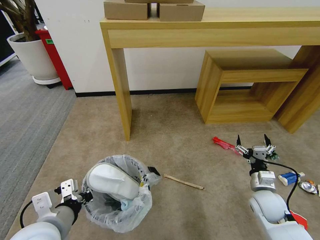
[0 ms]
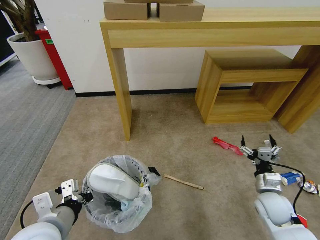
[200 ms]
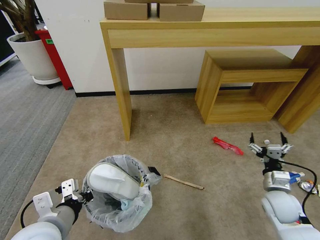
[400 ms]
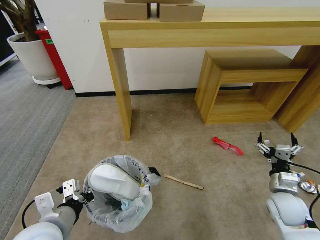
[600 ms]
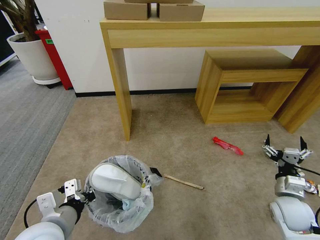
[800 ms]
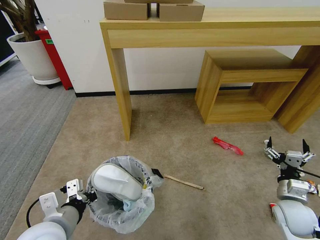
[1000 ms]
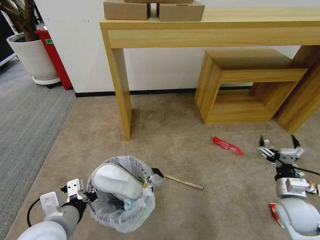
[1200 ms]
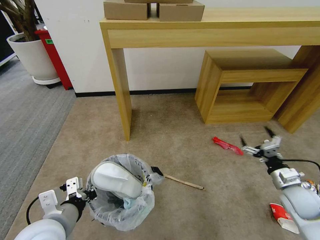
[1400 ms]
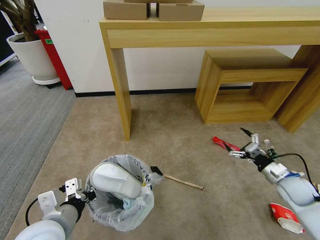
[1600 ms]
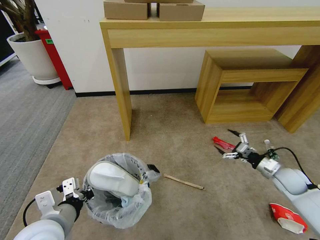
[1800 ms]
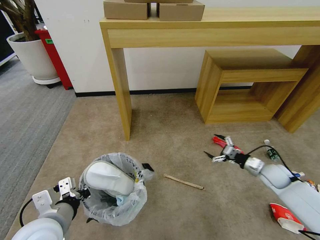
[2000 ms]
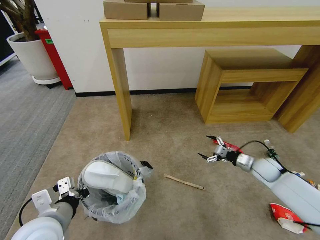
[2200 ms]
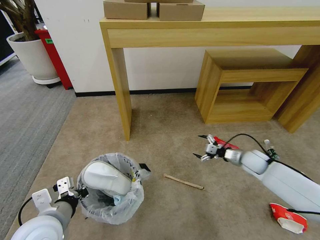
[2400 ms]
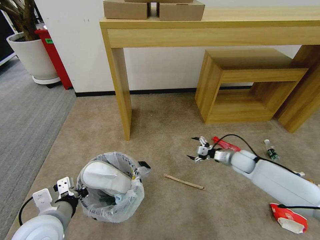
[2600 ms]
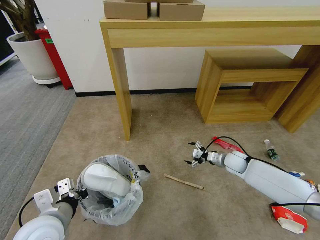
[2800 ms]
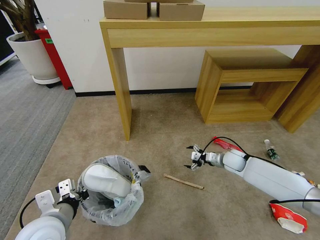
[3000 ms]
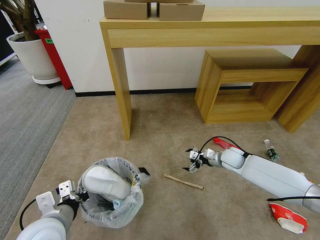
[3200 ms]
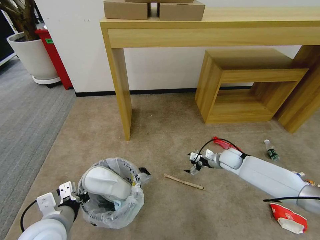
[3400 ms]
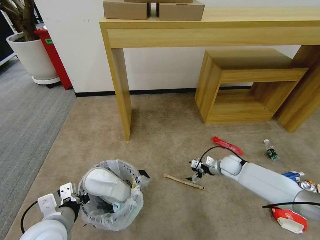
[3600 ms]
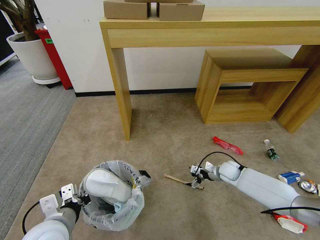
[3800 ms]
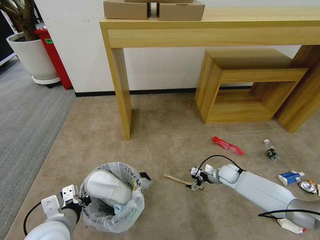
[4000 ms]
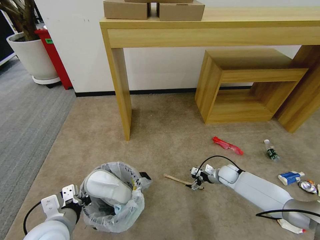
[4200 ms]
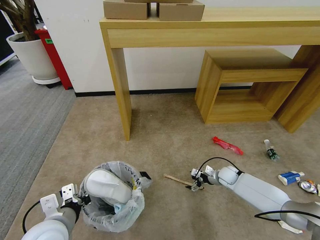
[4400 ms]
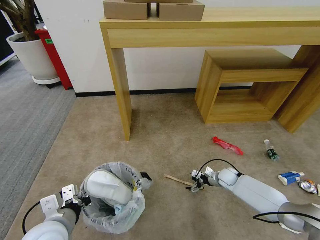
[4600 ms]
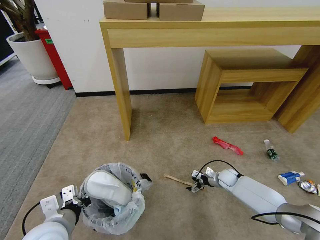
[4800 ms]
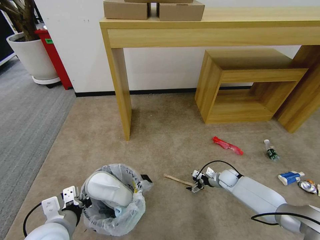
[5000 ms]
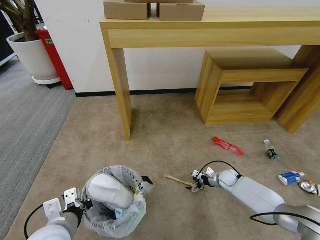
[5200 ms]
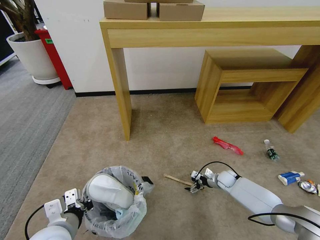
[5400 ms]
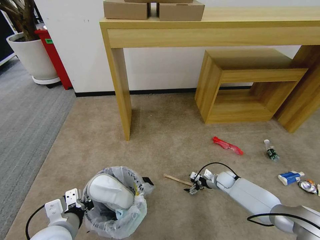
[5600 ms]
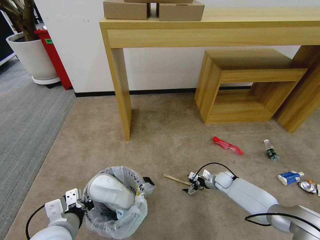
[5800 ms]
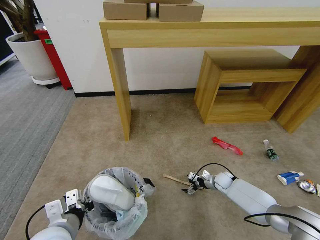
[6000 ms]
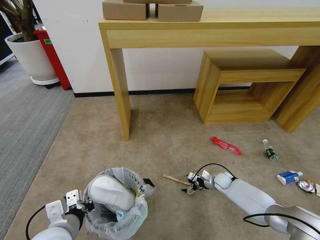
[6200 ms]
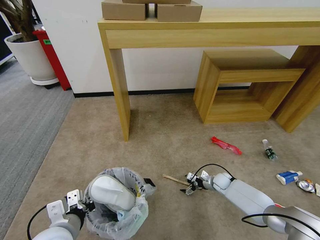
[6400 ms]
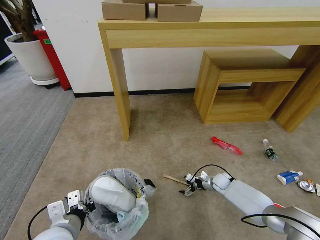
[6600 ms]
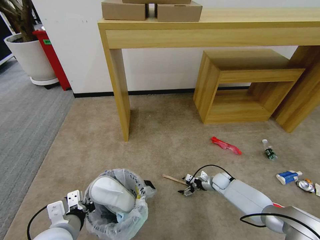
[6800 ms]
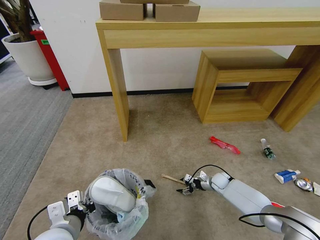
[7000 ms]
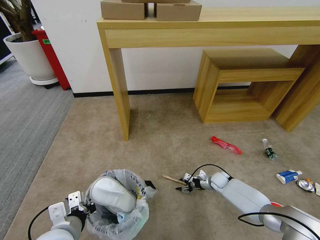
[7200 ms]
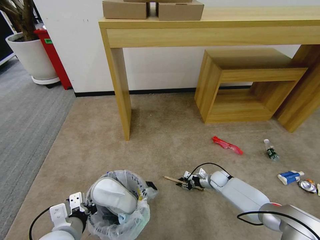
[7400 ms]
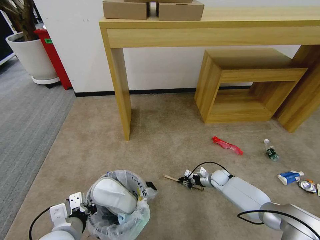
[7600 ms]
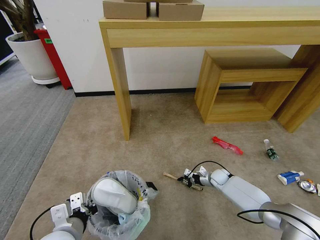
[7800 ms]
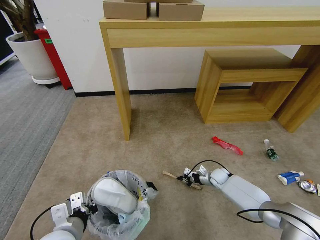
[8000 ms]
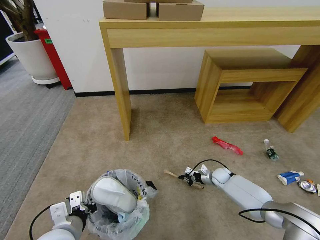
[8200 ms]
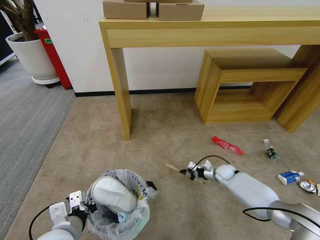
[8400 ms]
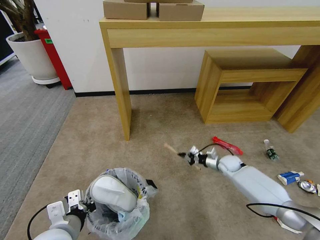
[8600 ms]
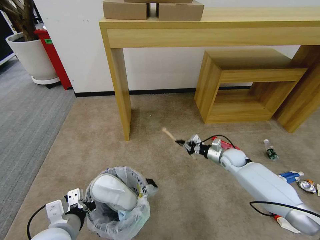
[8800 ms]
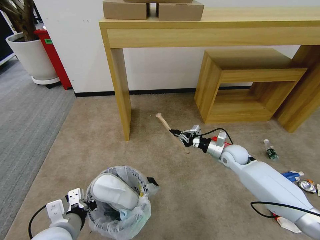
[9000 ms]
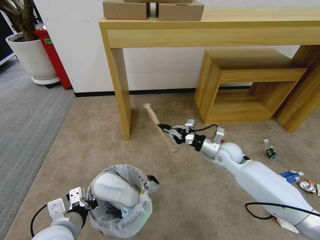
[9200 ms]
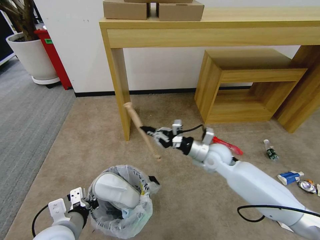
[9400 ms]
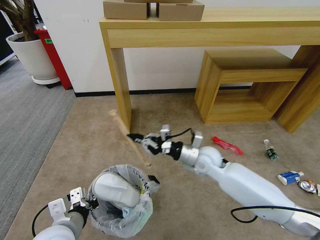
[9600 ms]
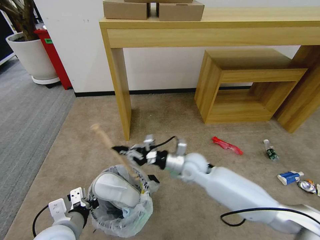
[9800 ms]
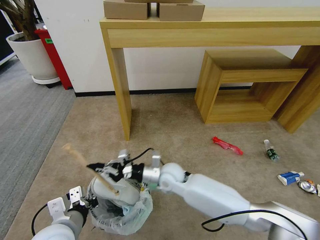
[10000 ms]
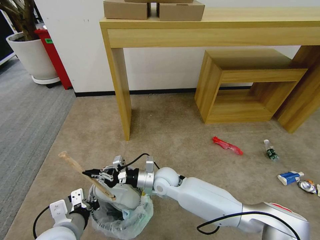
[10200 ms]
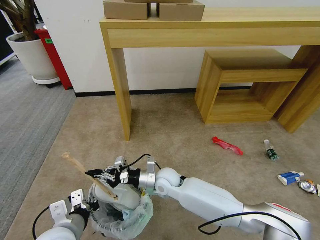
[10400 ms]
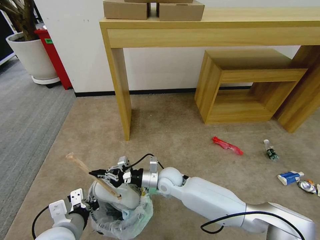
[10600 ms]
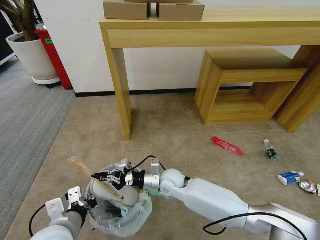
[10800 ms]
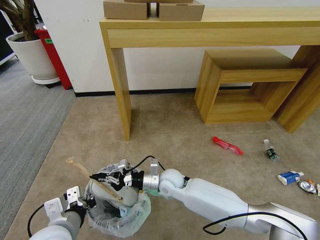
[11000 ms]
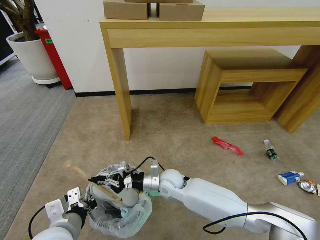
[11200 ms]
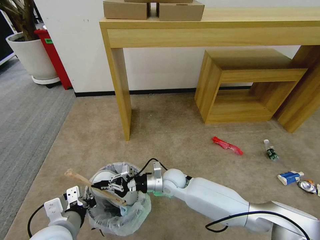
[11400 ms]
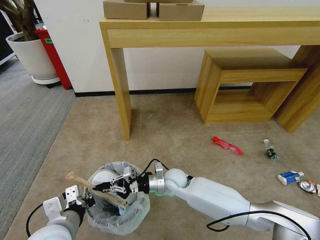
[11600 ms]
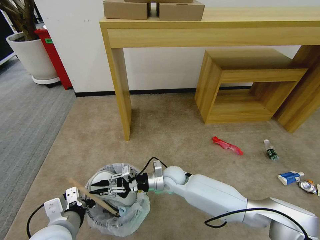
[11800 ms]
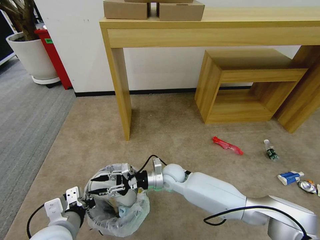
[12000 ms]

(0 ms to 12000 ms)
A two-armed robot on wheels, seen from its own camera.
Task of the whole recording: Pick up the trash bin and place the garbage on the floor into it.
0 ms - 1600 ms: The right gripper moves to the right, approximately 10 cm.
1600 ms - 3000 ms: The right gripper travels forward and to the left by approximately 20 cm.
3000 ms - 4400 ms: The right gripper goes about 10 cm downward.
4400 ms - 6000 ms: The grippers stay close to where they were, moving slightly.
6000 ms - 7600 ms: The right gripper closes up.
7600 ms - 9000 ms: The right gripper is displaced upward by roughly 20 cm.
9000 ms - 10400 ms: The right gripper goes some 30 cm to the left.
10400 ms - 12000 ms: The right gripper opens.

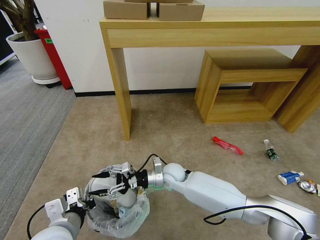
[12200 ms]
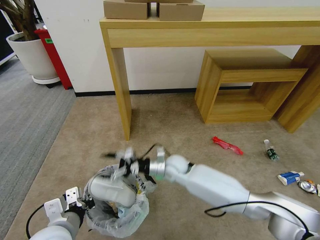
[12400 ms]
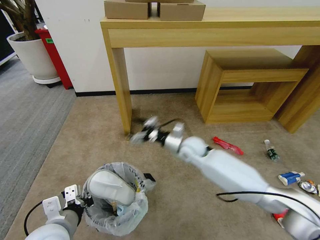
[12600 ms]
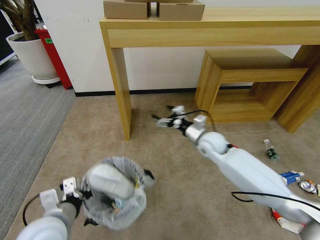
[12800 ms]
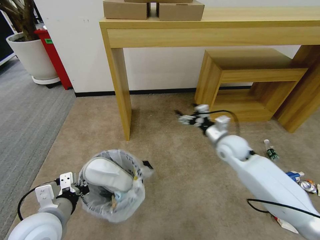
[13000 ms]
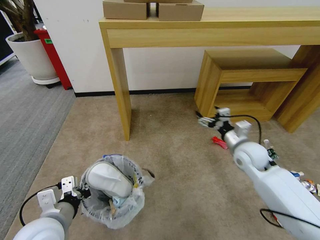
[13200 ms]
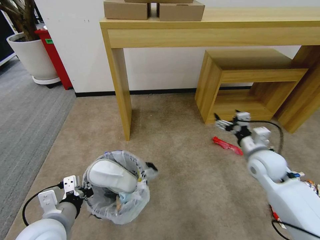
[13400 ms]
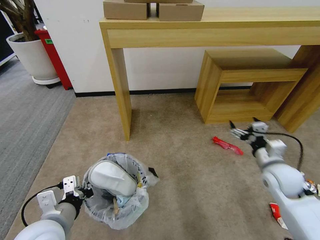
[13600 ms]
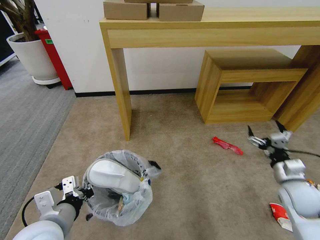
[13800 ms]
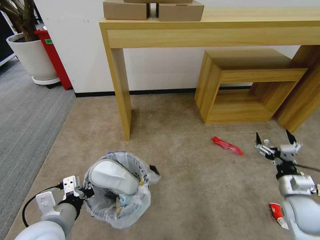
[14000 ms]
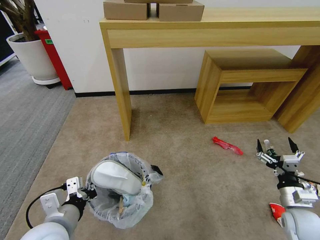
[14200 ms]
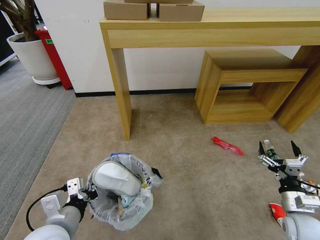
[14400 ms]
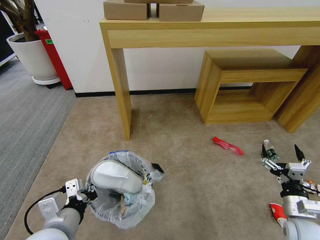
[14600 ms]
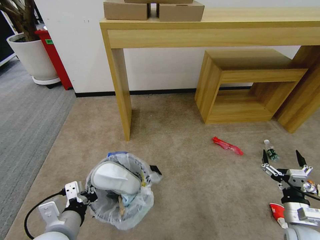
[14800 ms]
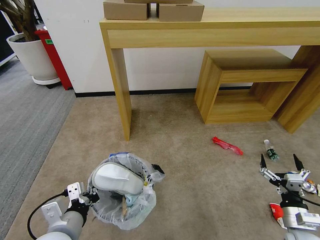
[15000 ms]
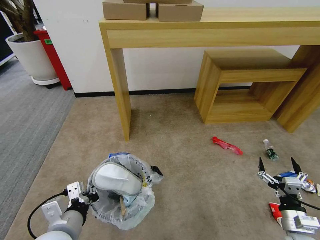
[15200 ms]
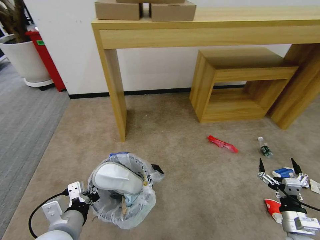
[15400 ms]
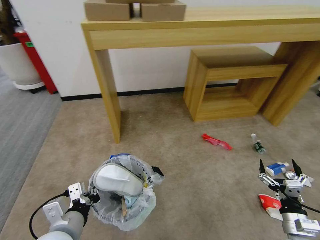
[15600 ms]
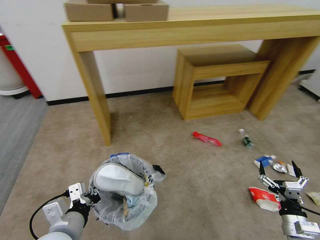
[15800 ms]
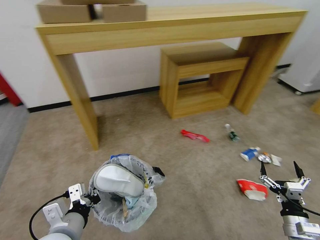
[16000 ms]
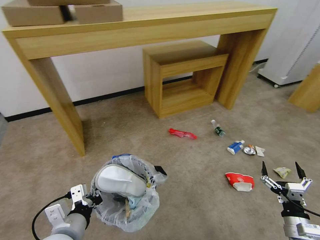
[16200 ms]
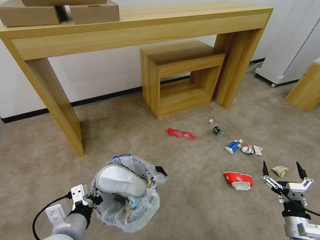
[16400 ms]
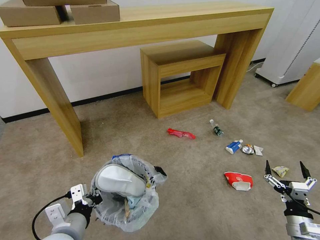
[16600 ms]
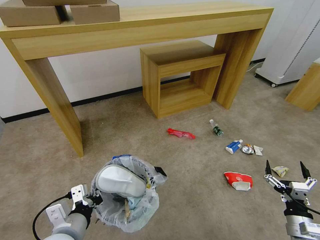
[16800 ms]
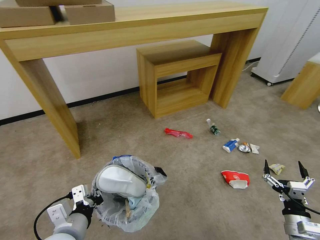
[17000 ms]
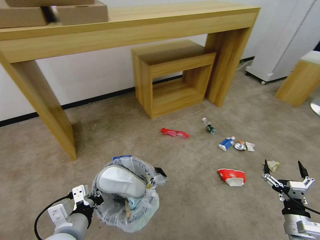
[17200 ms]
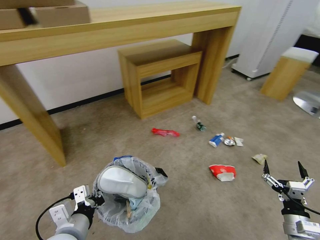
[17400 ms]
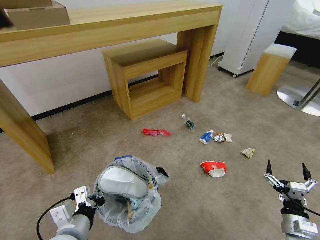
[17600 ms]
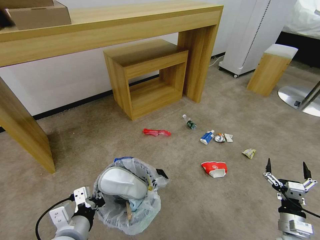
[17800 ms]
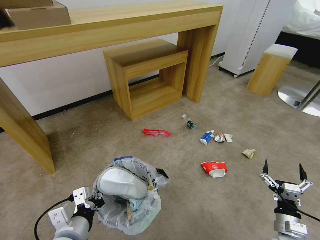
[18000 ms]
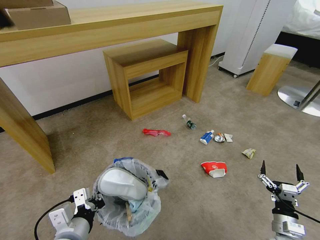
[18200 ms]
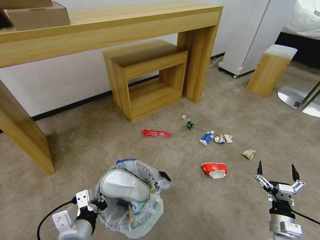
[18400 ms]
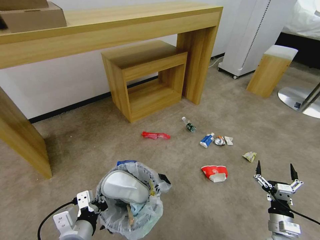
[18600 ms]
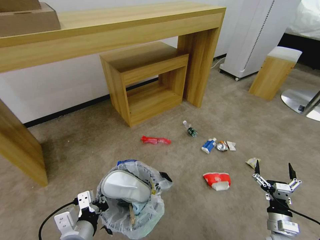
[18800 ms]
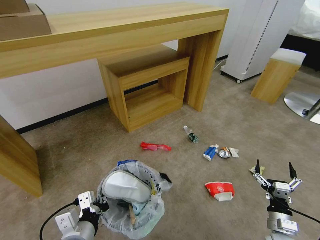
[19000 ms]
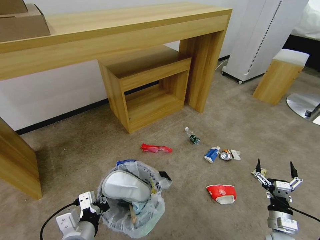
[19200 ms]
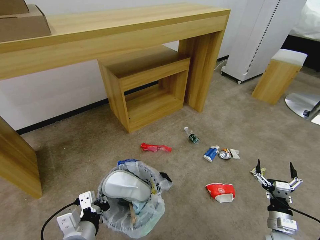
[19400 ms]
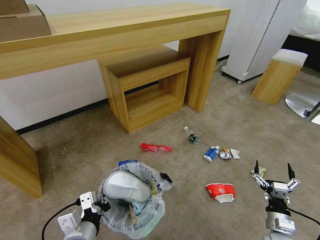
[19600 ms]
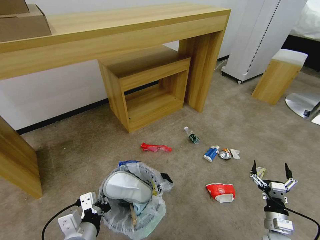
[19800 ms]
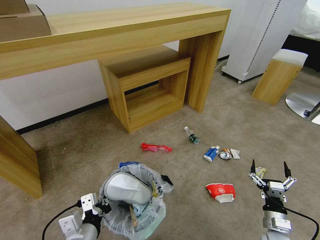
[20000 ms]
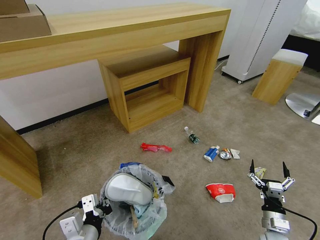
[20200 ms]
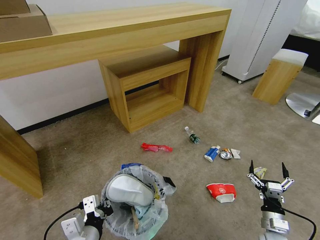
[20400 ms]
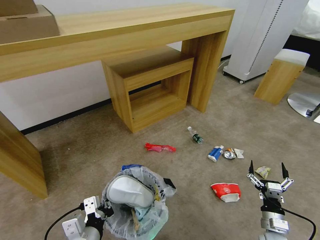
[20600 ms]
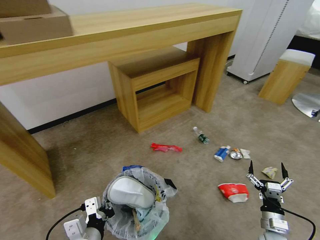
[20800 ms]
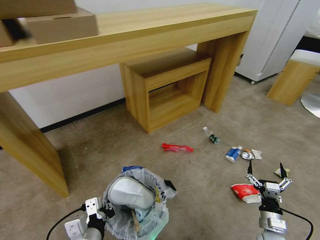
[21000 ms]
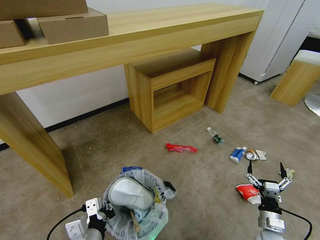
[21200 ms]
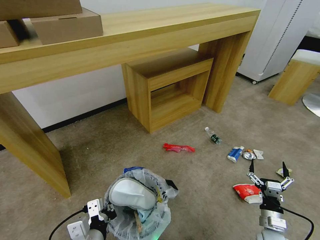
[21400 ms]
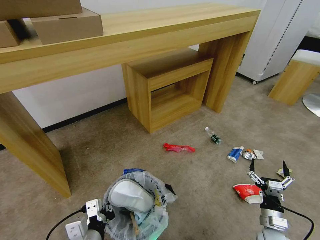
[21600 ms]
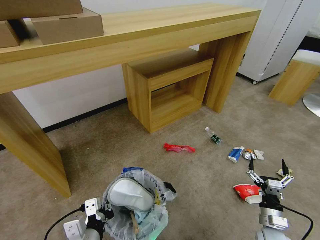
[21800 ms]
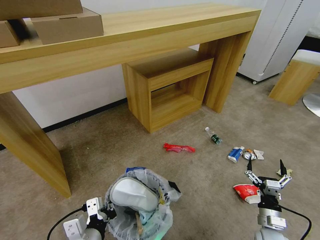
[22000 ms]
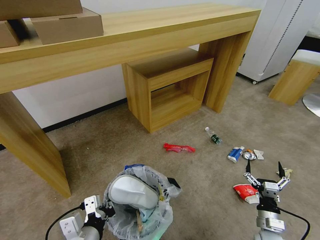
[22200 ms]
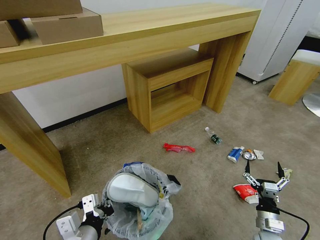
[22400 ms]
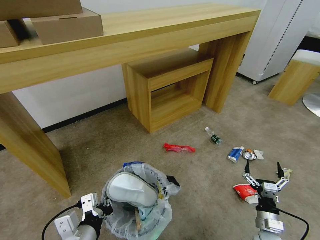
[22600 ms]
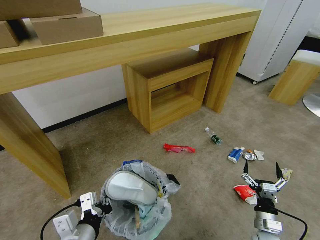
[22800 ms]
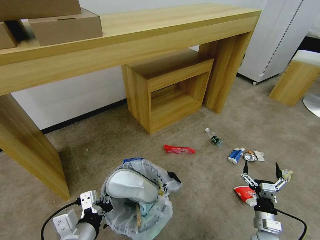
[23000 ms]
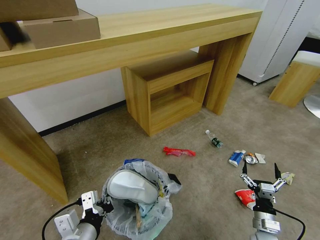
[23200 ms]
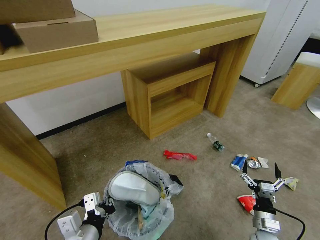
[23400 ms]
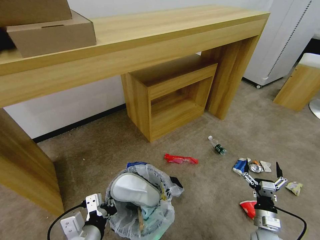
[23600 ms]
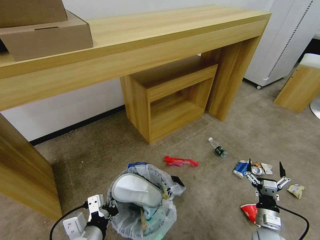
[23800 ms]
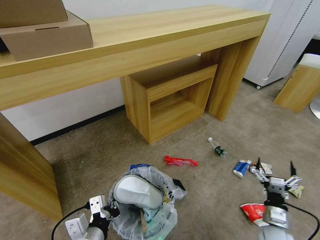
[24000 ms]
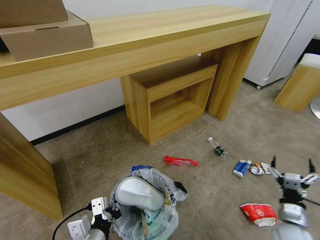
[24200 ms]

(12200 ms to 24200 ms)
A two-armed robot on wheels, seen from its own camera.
Task of the whole recording: Pick up the trash bin and place the garbage on the floor into it.
12200 ms - 13800 ms: The right gripper heads to the right, covering some 35 cm.
13800 ms - 15200 ms: The right gripper shifts roughly 15 cm backward and downward.
21200 ms - 22600 ms: There are only small adjustments of the grippers.
22600 ms - 24200 ms: The right gripper heads to the right, covering roughly 5 cm.
